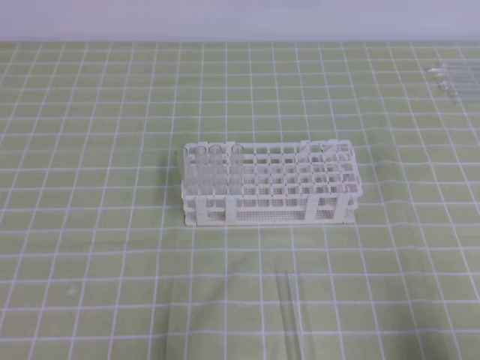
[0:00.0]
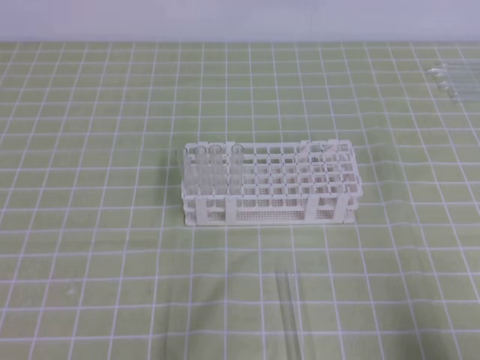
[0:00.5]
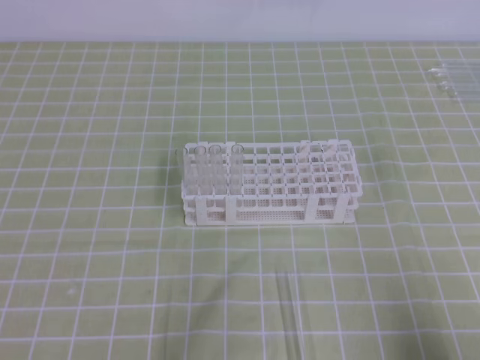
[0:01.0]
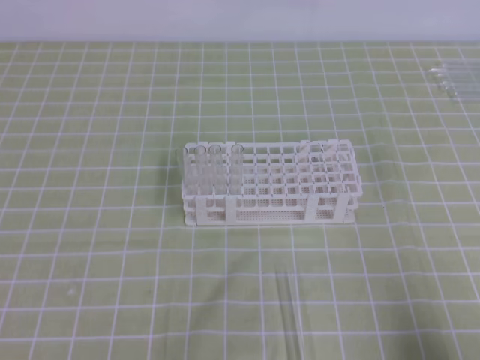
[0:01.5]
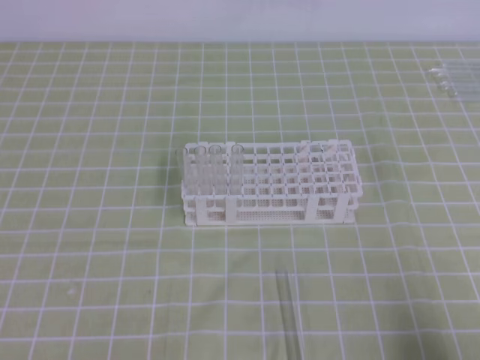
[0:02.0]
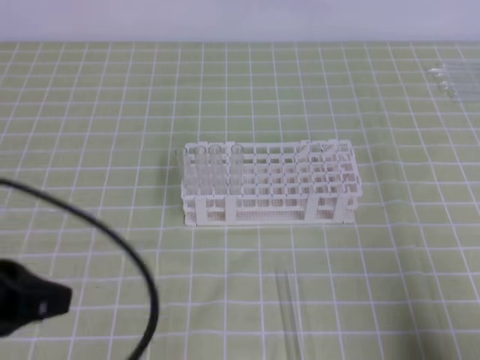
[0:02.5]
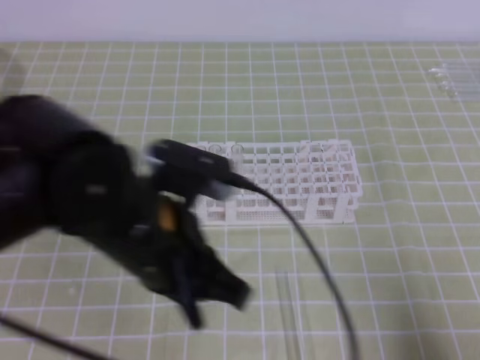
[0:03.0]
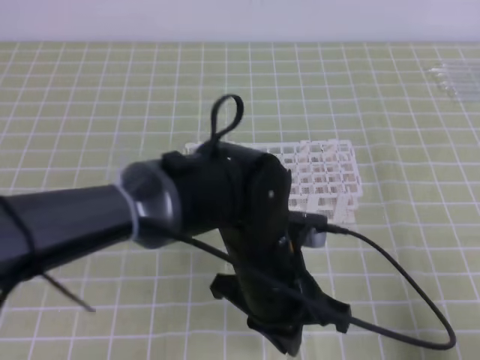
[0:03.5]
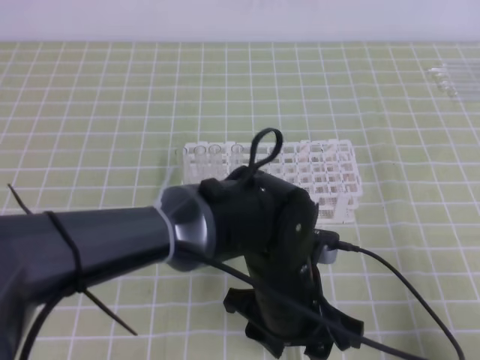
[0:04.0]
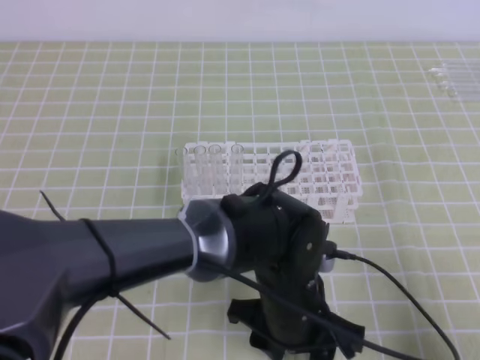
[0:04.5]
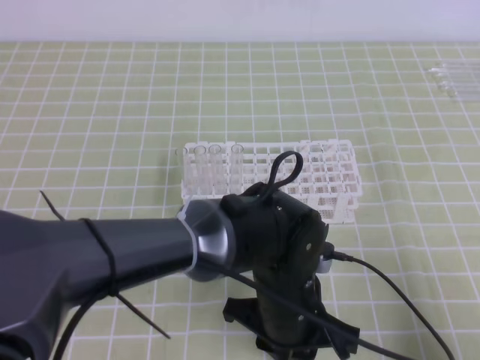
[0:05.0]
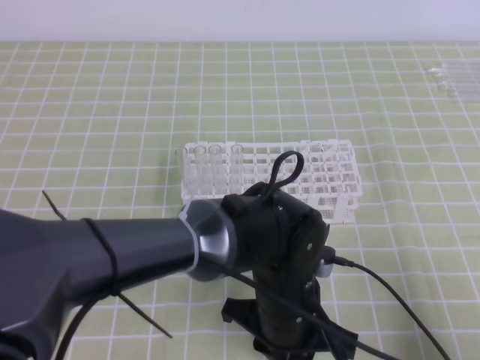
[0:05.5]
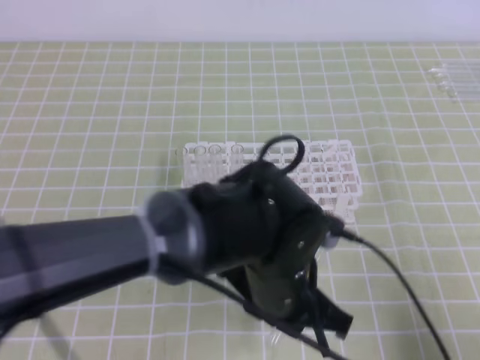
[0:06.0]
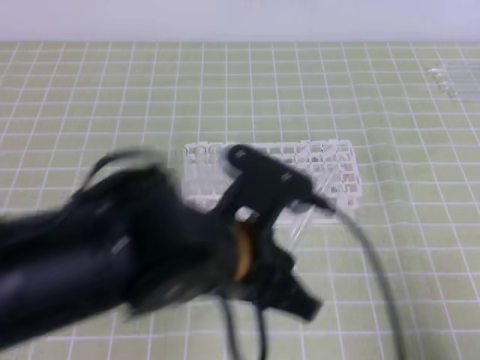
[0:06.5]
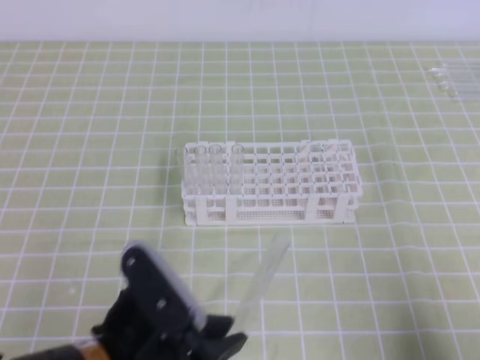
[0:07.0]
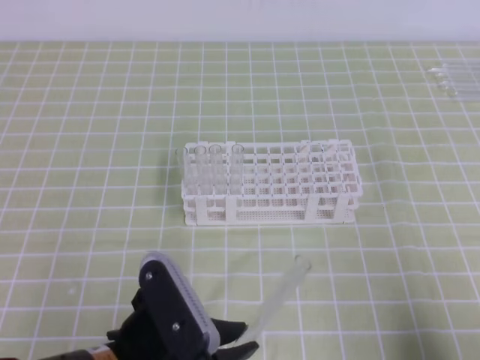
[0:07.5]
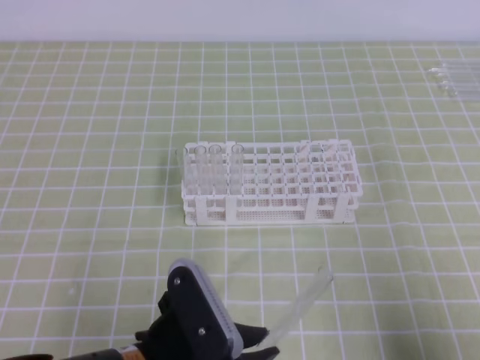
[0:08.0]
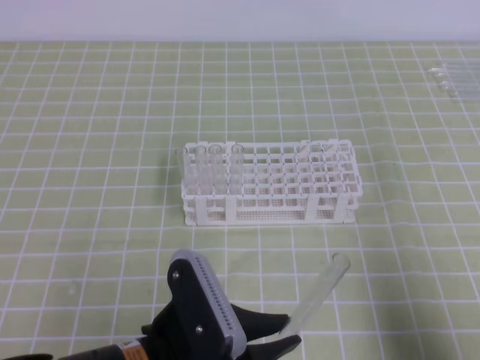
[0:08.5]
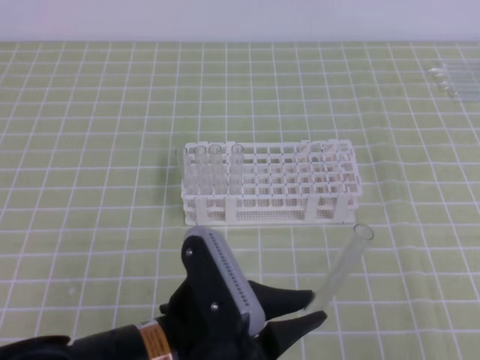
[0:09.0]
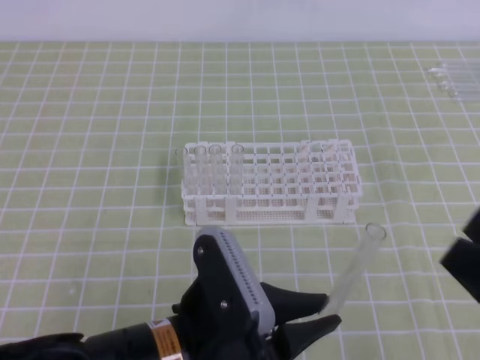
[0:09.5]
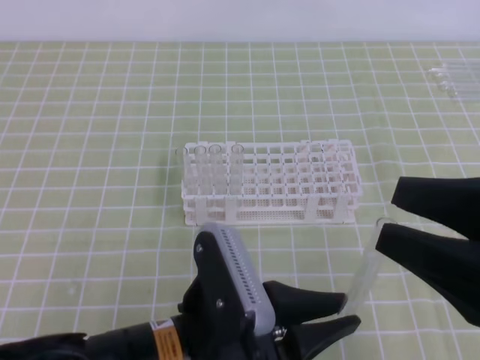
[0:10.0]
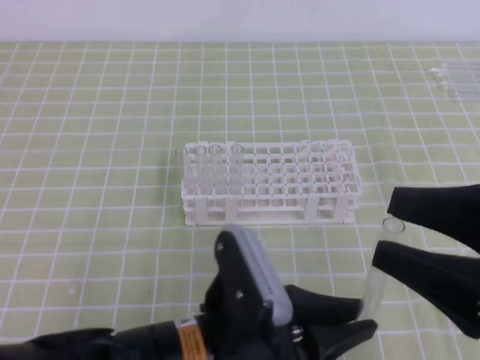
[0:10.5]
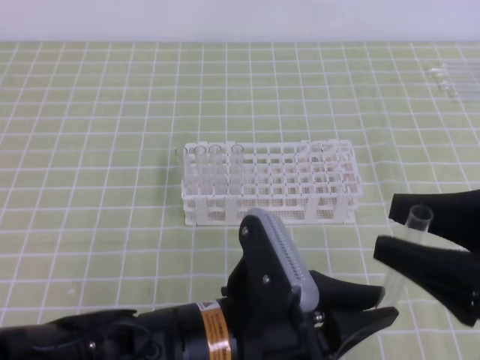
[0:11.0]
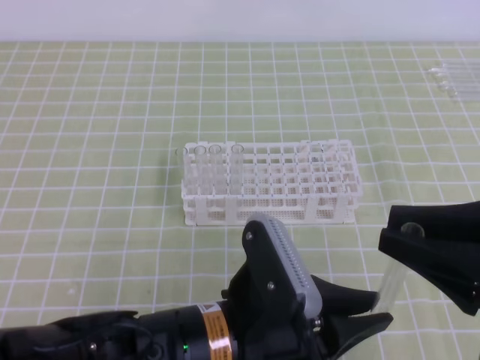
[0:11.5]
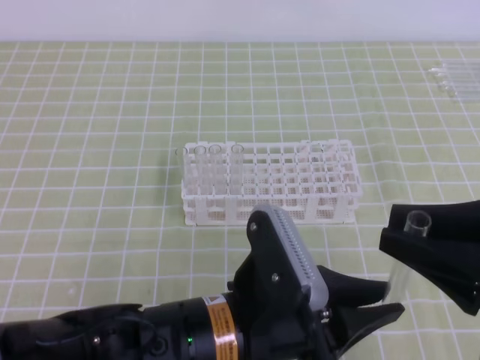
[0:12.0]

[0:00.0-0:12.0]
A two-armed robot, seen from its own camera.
0:02.0 to 0:04.0: The left gripper moves to the right and forward, roughly 35 cm, and opens.
0:04.0 to 0:06.0: The left gripper closes up.
0:06.0 to 0:08.0: The left gripper is displaced to the left and backward by about 15 cm.
0:08.0 to 0:10.0: The right gripper goes about 15 cm upward, to the left and forward, and opens up.
0:10.0 to 0:12.0: The right gripper closes its fingers.

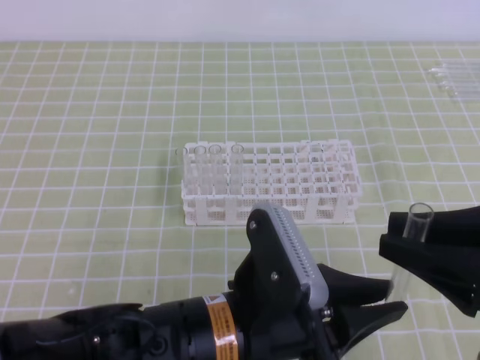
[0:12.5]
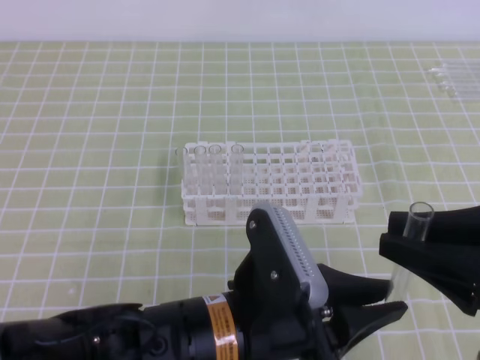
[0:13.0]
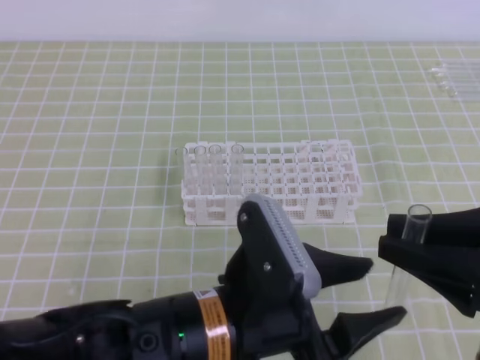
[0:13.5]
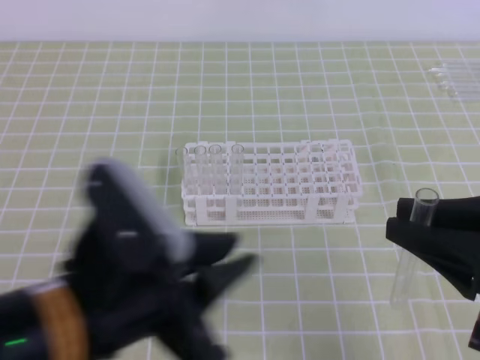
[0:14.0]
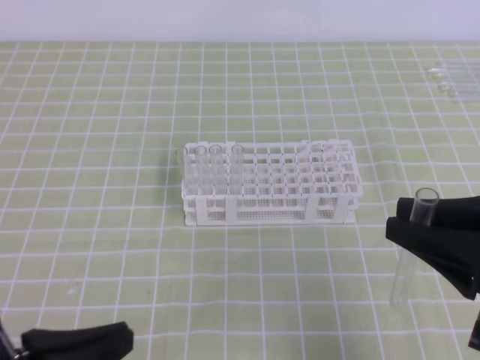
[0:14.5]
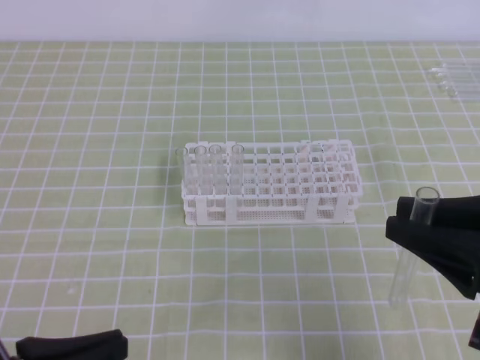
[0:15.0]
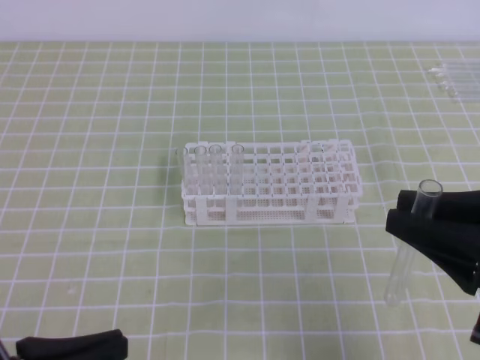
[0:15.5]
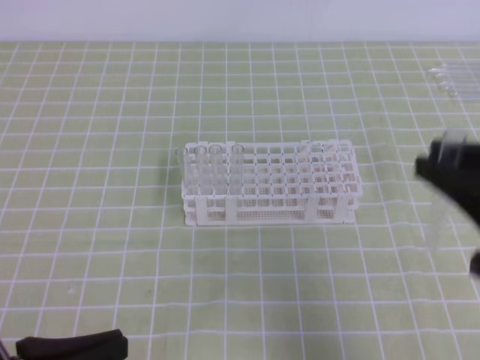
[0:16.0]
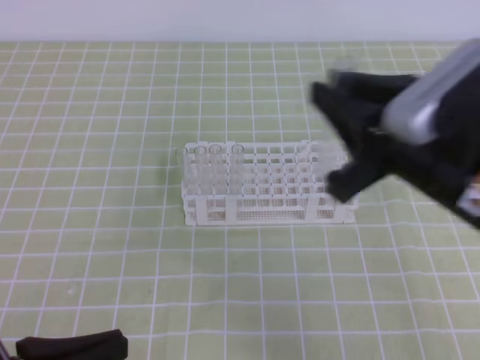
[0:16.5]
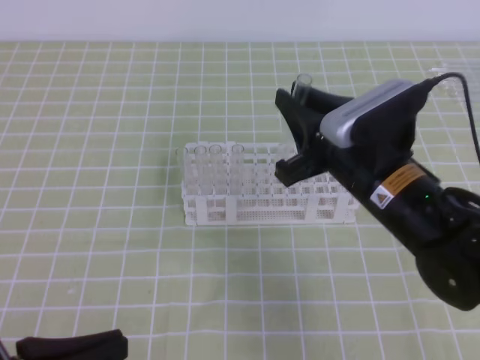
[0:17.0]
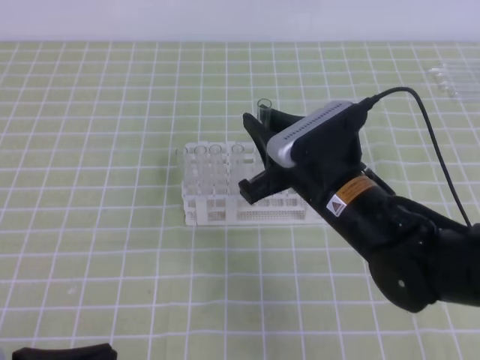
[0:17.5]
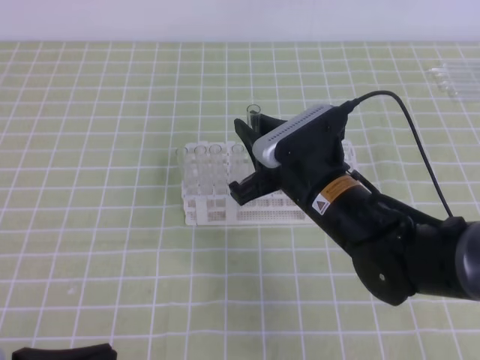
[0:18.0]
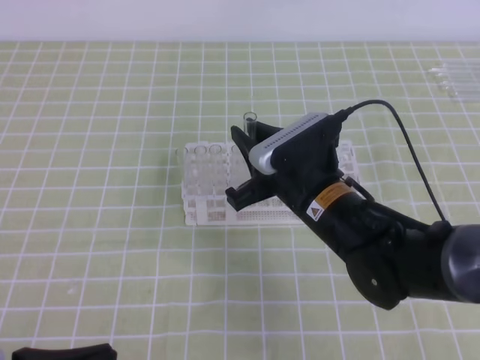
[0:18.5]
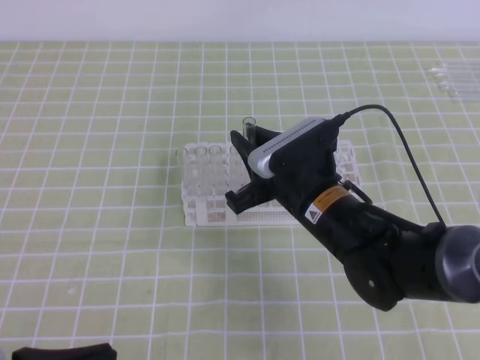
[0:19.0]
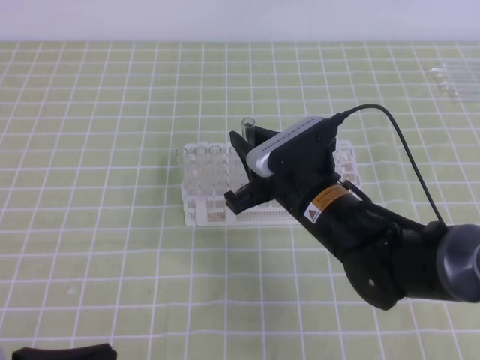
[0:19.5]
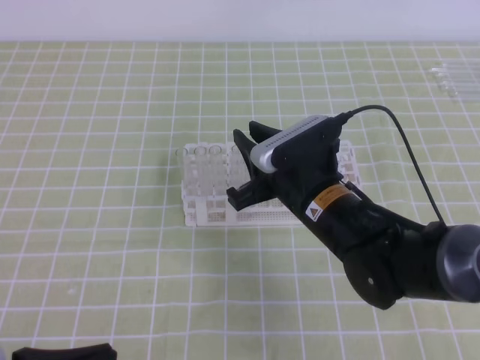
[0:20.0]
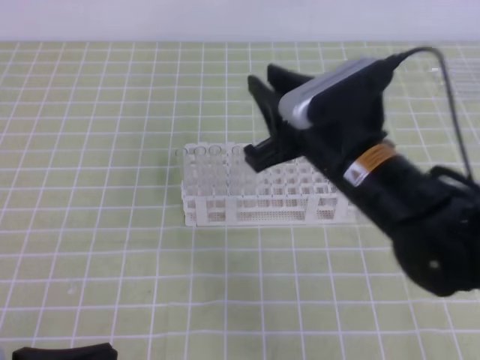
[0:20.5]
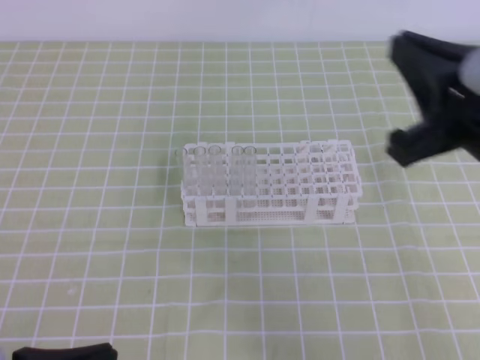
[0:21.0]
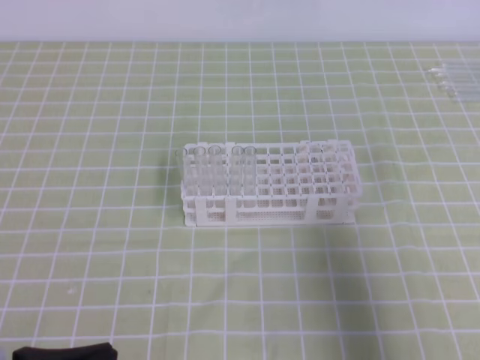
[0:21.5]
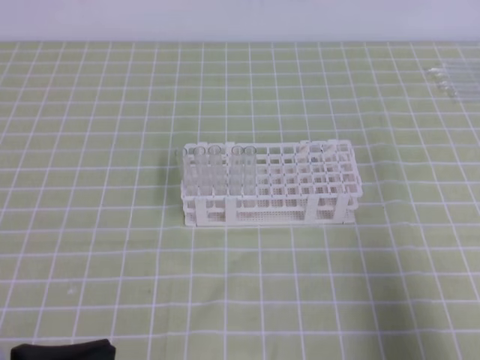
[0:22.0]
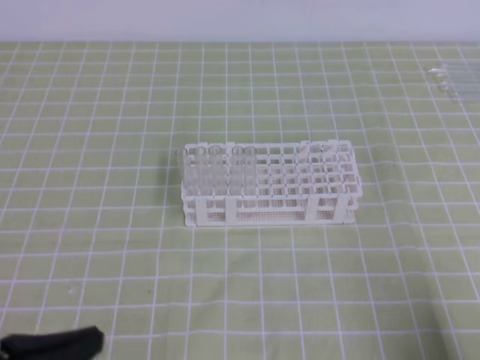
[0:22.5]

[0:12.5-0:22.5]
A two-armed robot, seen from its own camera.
0:12.5 to 0:14.5: The left gripper goes some 20 cm to the left, and opens, then closes once more.
0:14.5 to 0:16.5: The right gripper travels forward and to the left by roughly 10 cm.
0:16.5 to 0:18.5: The right gripper heads downward, to the left and forward, covering some 20 cm.
0:18.5 to 0:20.5: The right gripper moves upward, roughly 5 cm.
0:20.5 to 0:22.5: The right gripper heads to the right, backward and downward, covering roughly 30 cm, and closes its fingers.

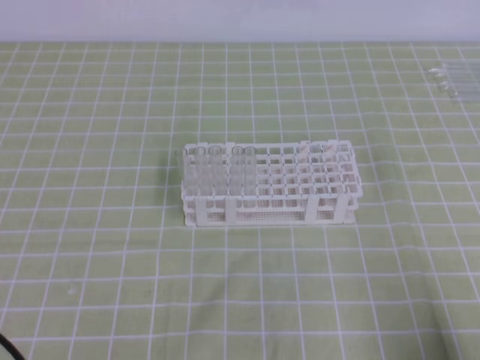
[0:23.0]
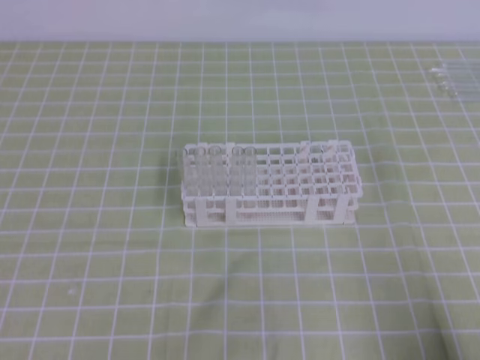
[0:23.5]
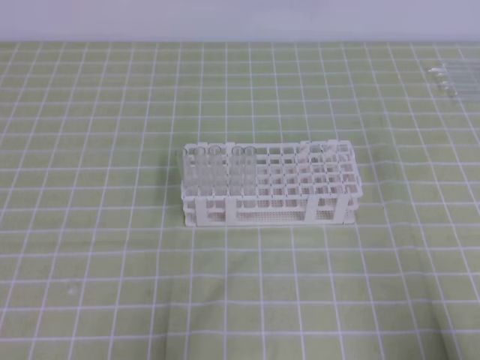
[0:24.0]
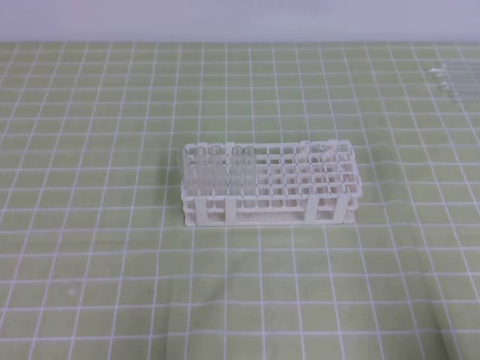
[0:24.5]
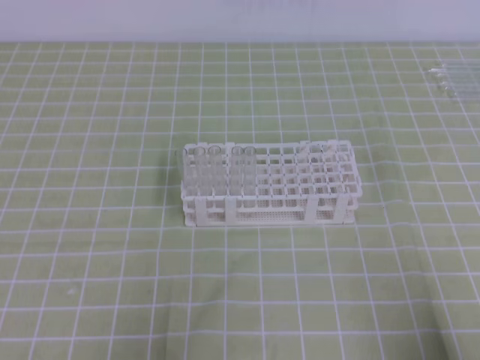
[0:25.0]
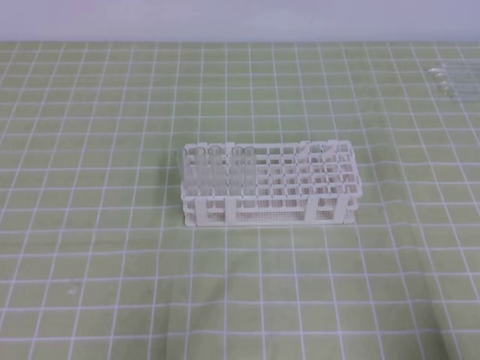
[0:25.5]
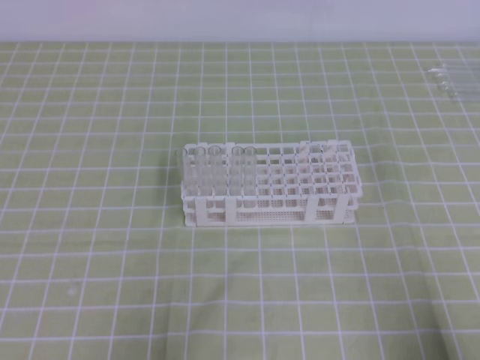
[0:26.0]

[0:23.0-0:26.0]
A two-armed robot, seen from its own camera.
0:24.5 to 0:26.0: Neither gripper changes place.

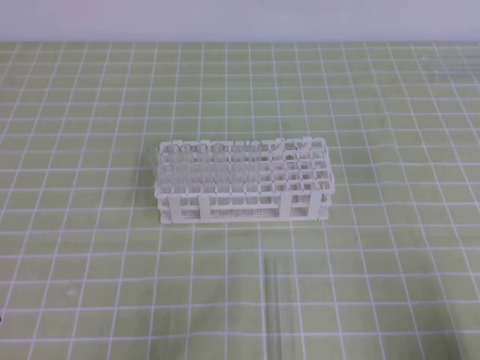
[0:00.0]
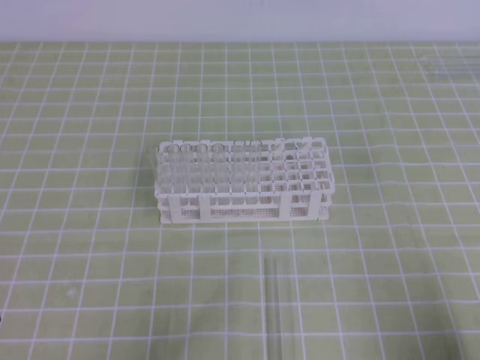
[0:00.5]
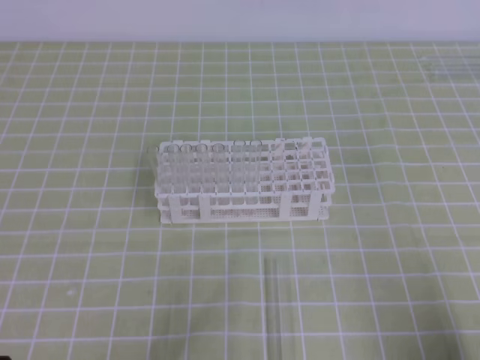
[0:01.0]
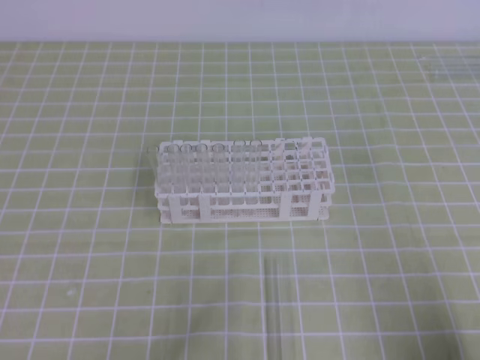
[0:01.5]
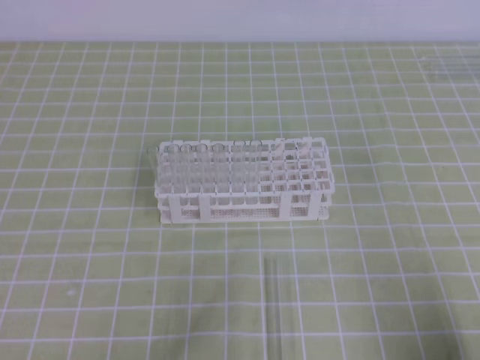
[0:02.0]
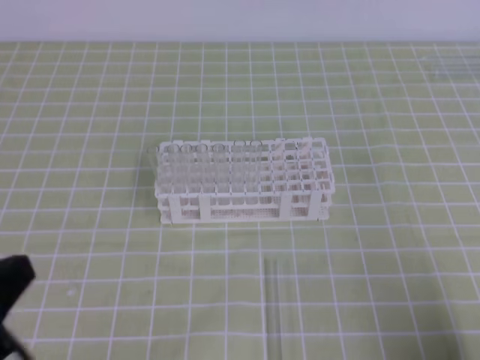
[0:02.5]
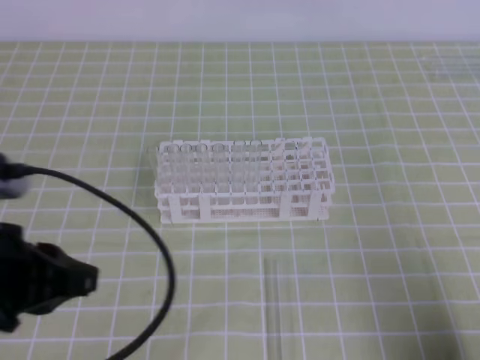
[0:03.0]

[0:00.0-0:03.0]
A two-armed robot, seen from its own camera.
0:01.5 to 0:03.0: The left gripper shifts some 15 cm upward, to the right and forward.
